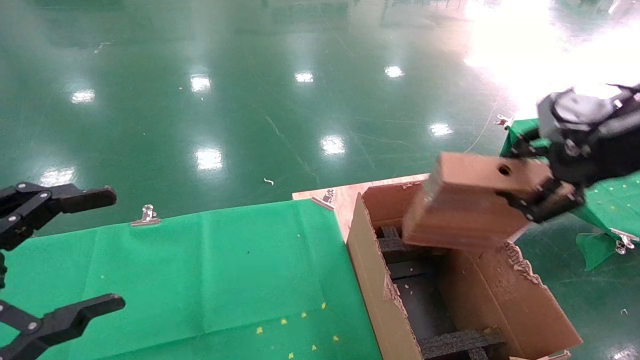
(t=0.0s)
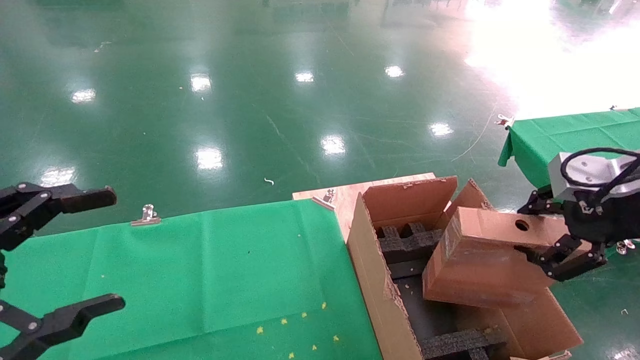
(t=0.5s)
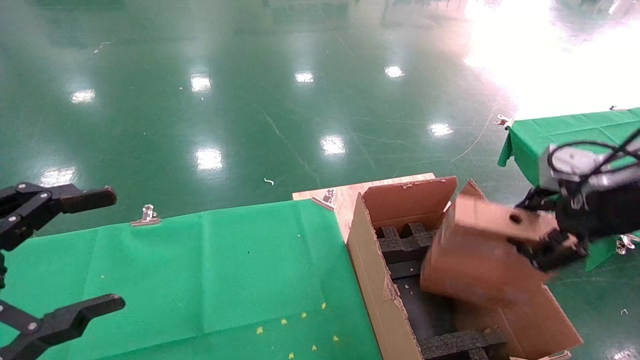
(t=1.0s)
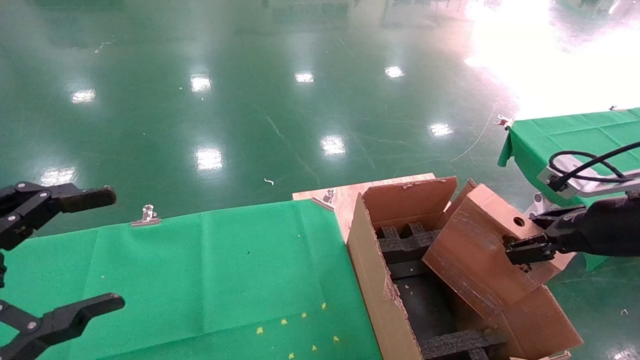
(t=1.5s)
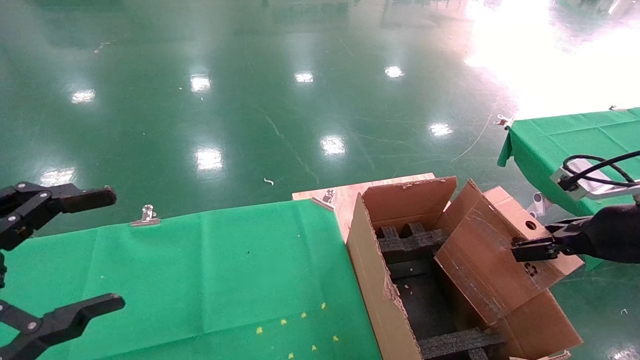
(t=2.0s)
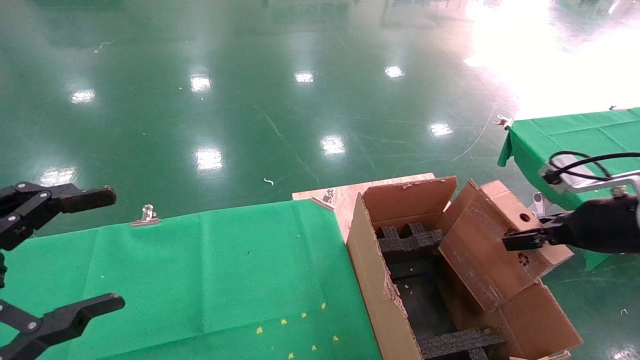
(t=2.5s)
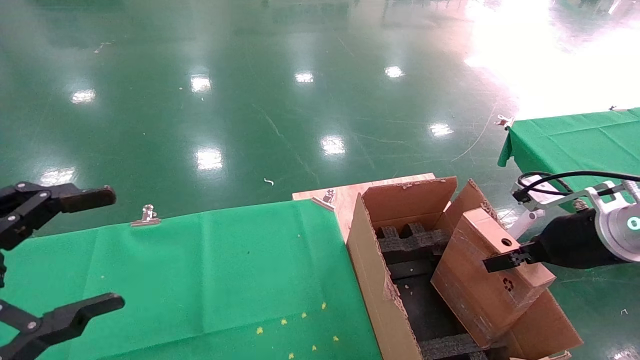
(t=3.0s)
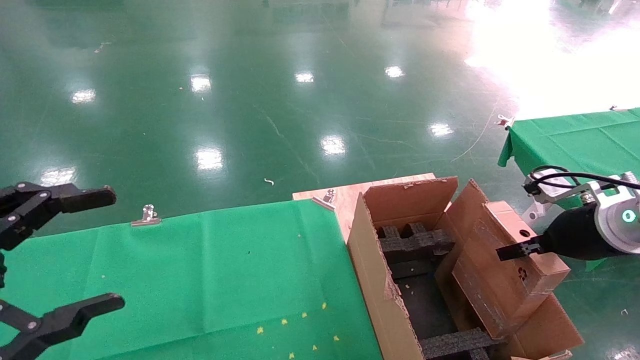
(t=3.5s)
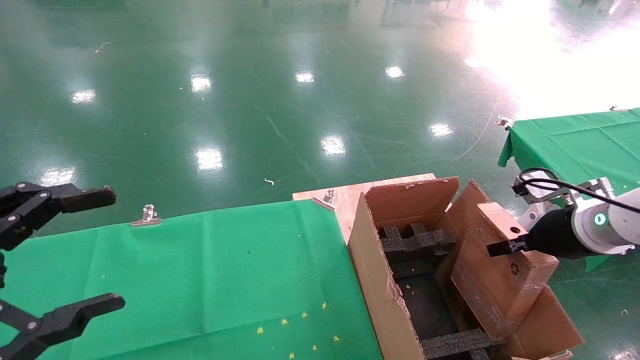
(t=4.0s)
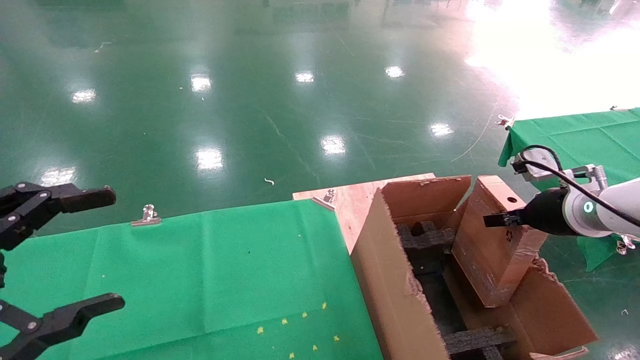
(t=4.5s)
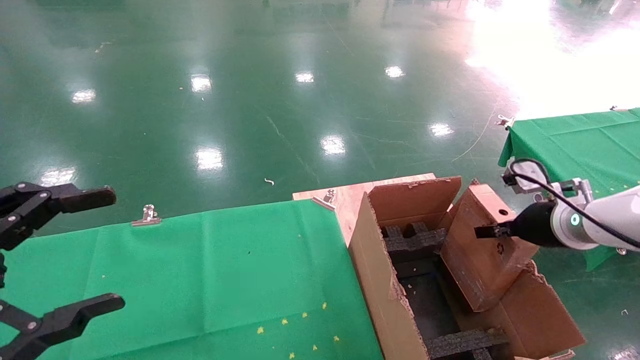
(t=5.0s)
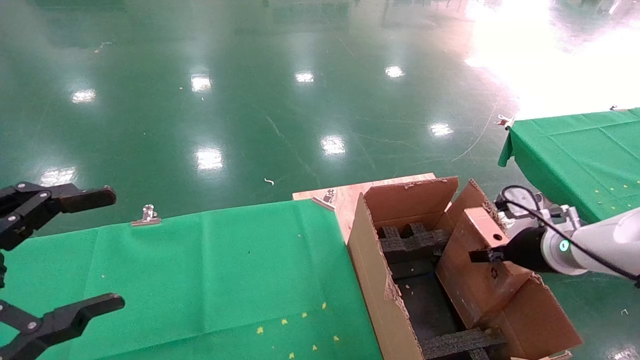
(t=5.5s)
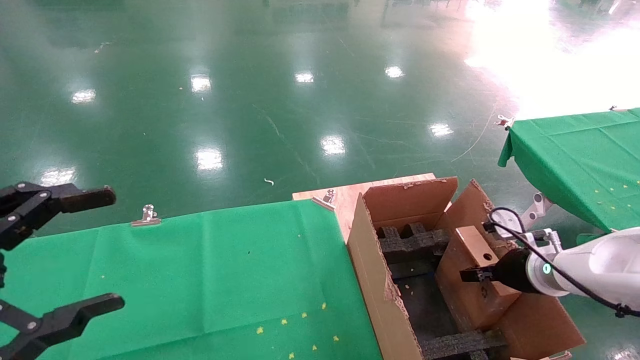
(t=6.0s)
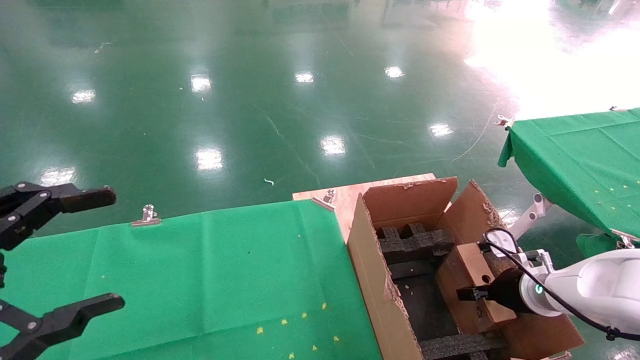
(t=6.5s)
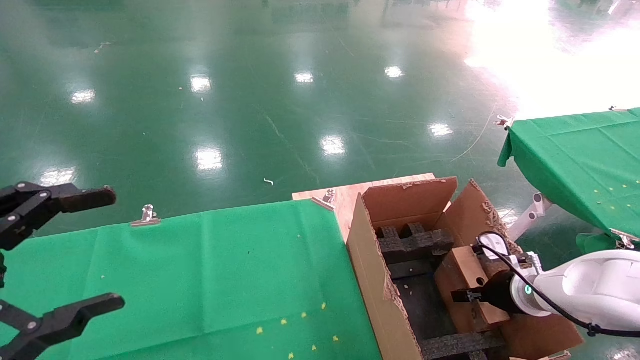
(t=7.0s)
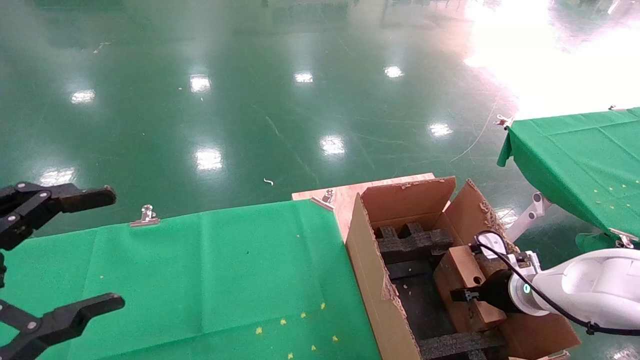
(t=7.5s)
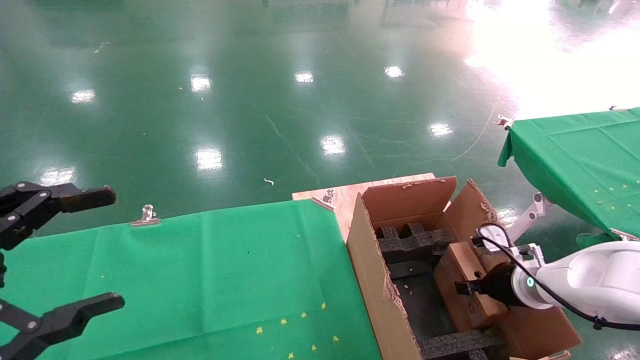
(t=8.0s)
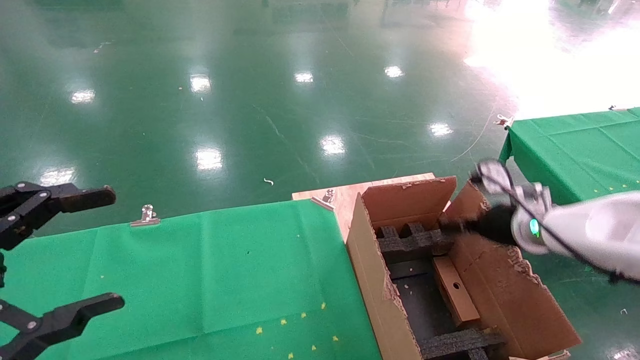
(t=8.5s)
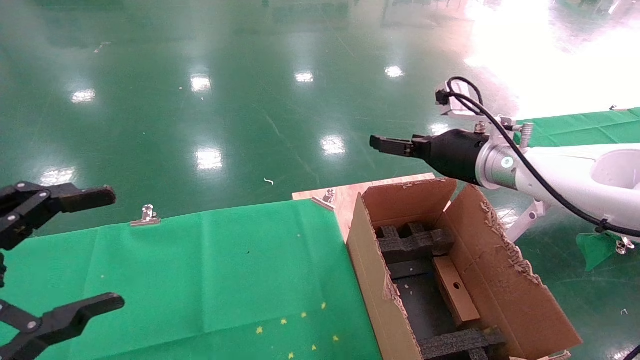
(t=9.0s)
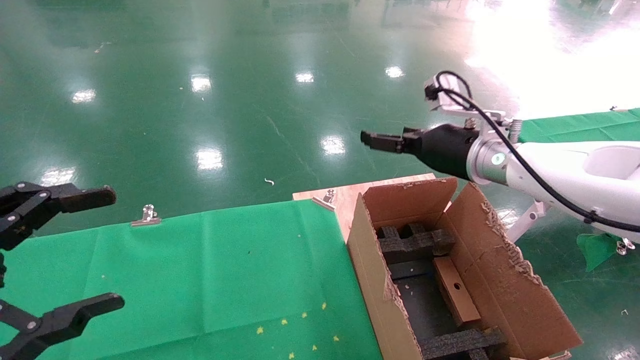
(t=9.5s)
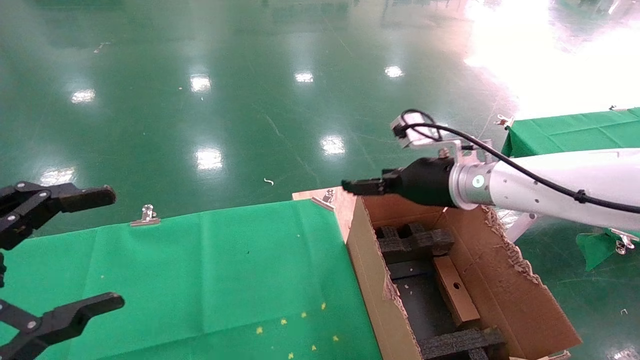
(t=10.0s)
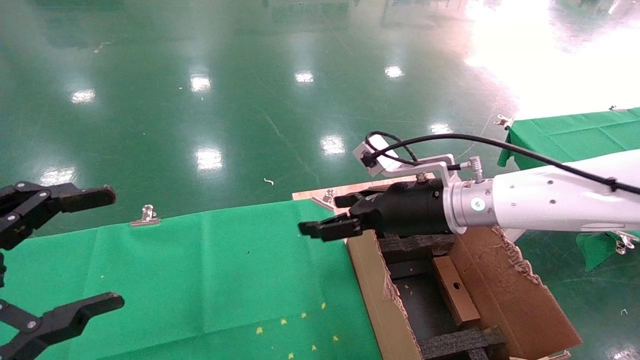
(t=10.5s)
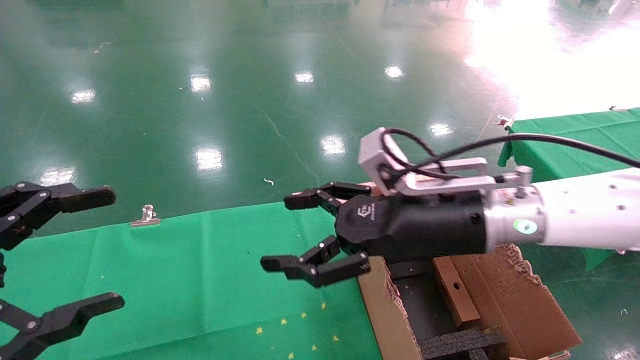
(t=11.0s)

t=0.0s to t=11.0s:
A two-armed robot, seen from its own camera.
Task of the whole recording: using a robotic arm to pick up a cardboard box and palace it the carton.
Step, t=0.0s to t=8.5s: Place the mouse and the power cord paper box into the container.
t=0.0s to t=2.0s: The right gripper heads downward, covering about 15 cm.
t=2.0s to t=3.5s: The right gripper heads forward, covering approximately 5 cm.
t=3.5s to t=5.5s: The right gripper moves downward and forward, approximately 10 cm.
t=5.5s to t=7.5s: The right gripper travels downward by some 10 cm.
t=7.5s to t=9.0s: The right gripper moves upward and to the left, about 25 cm, and opens its fingers.
t=9.0s to t=11.0s: The right gripper is displaced backward and to the left by about 15 cm.
